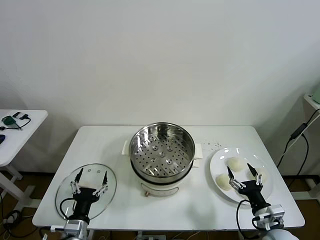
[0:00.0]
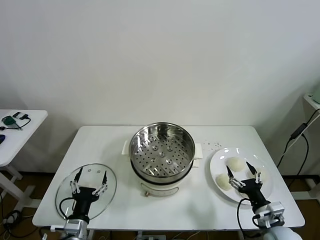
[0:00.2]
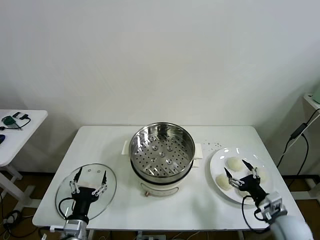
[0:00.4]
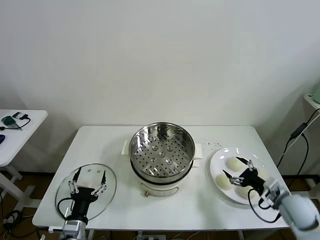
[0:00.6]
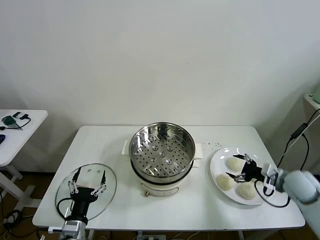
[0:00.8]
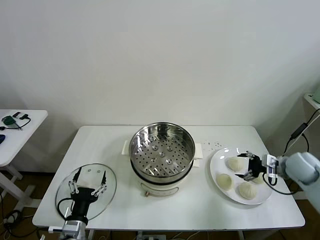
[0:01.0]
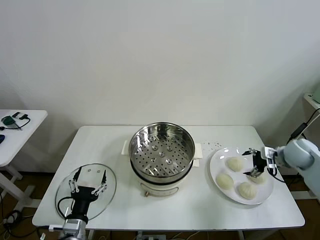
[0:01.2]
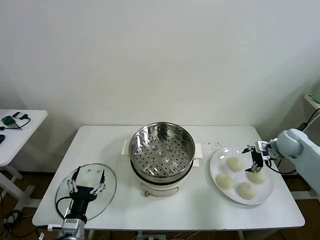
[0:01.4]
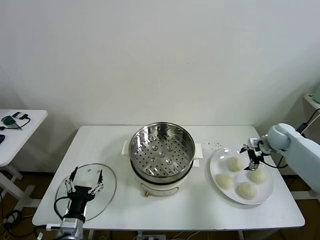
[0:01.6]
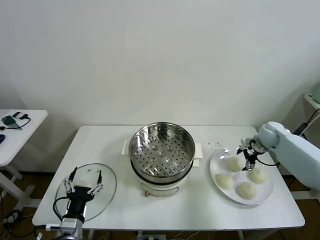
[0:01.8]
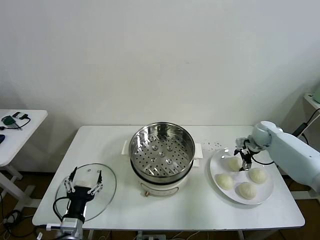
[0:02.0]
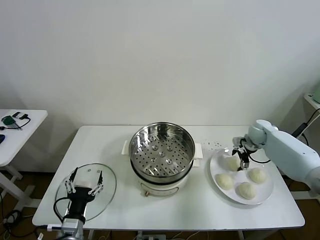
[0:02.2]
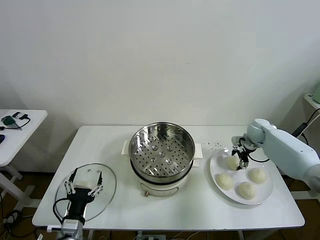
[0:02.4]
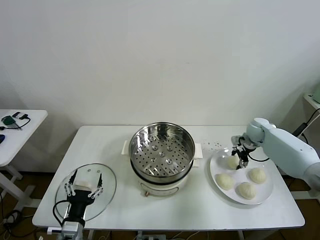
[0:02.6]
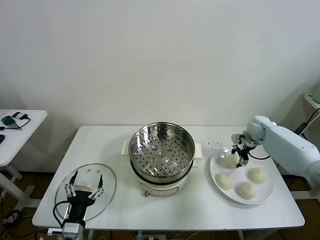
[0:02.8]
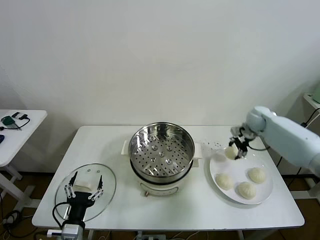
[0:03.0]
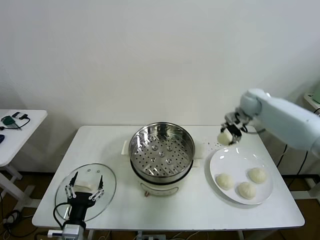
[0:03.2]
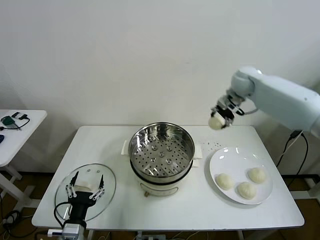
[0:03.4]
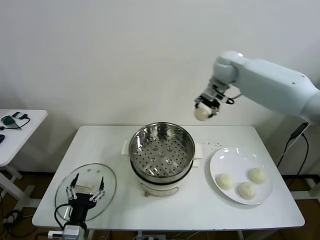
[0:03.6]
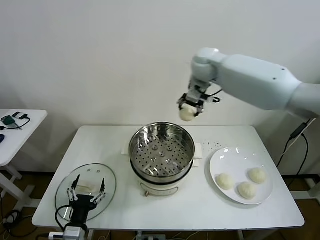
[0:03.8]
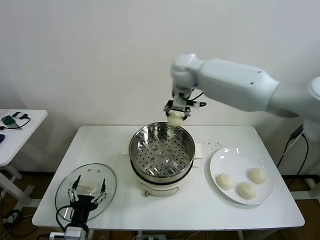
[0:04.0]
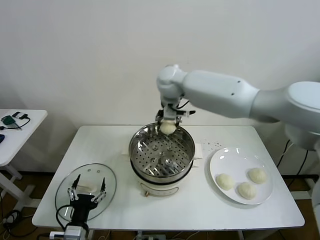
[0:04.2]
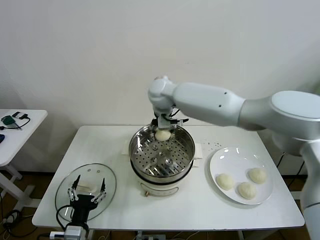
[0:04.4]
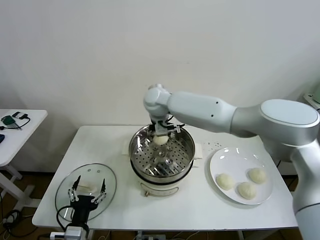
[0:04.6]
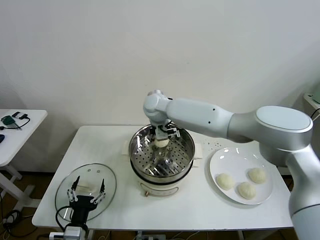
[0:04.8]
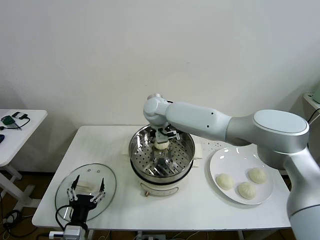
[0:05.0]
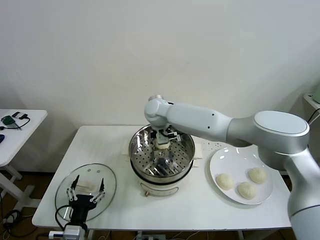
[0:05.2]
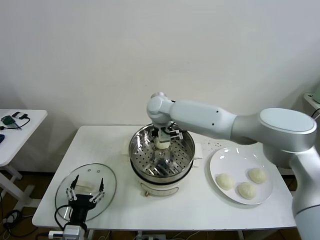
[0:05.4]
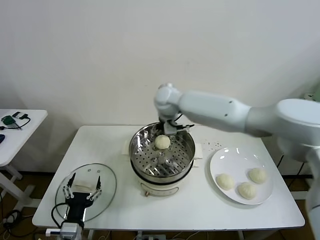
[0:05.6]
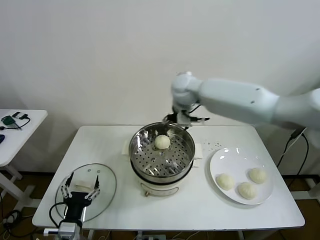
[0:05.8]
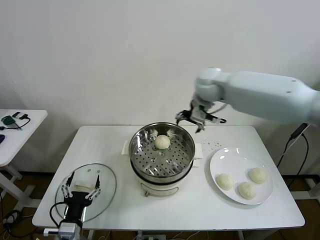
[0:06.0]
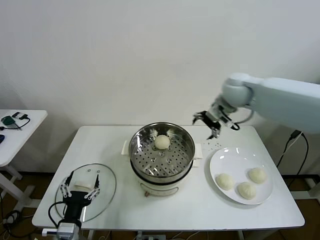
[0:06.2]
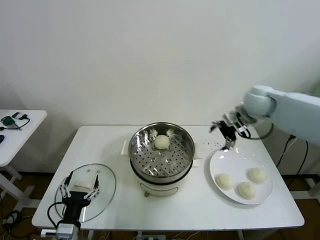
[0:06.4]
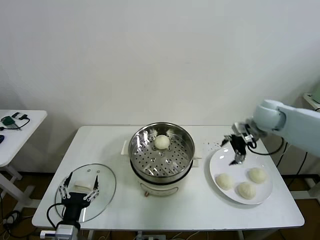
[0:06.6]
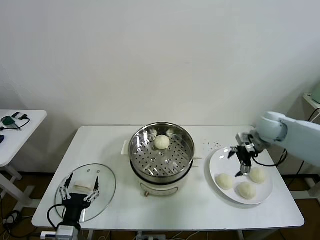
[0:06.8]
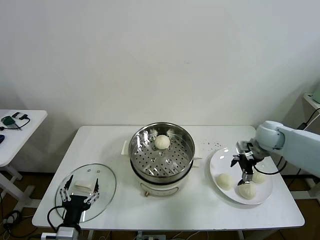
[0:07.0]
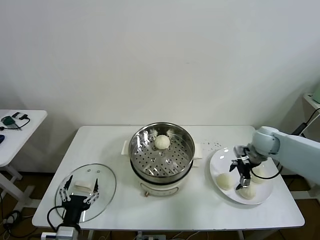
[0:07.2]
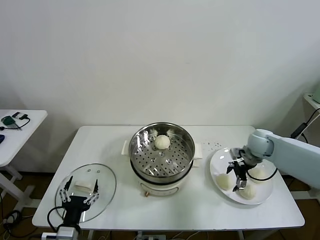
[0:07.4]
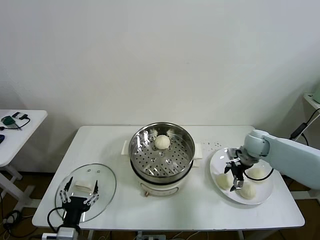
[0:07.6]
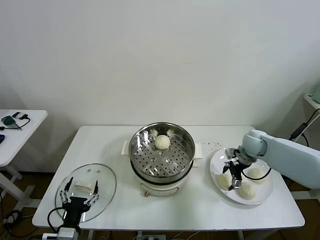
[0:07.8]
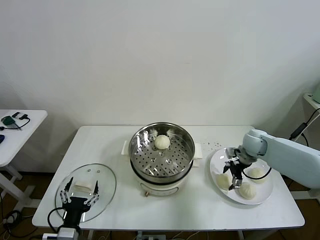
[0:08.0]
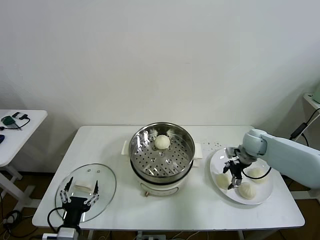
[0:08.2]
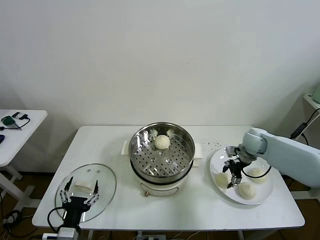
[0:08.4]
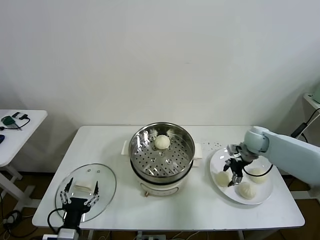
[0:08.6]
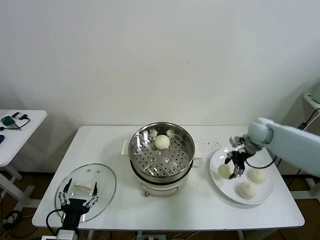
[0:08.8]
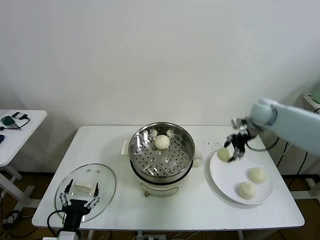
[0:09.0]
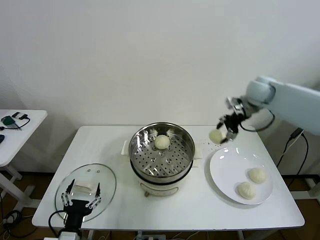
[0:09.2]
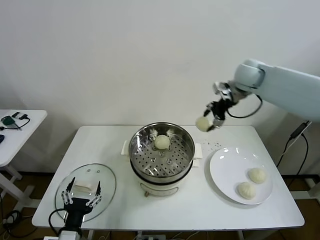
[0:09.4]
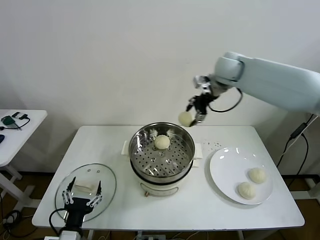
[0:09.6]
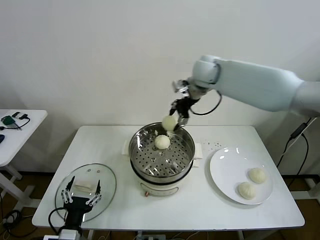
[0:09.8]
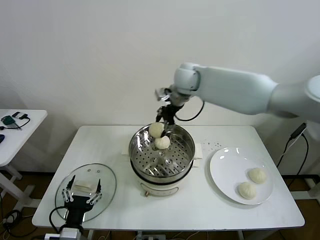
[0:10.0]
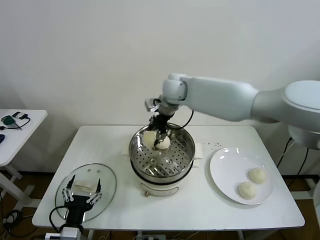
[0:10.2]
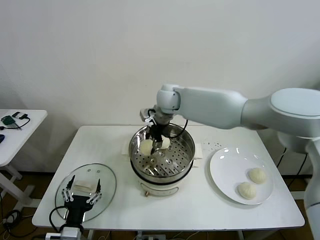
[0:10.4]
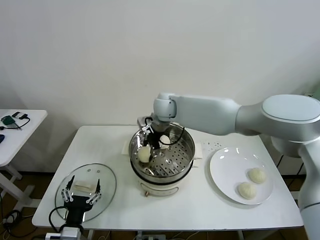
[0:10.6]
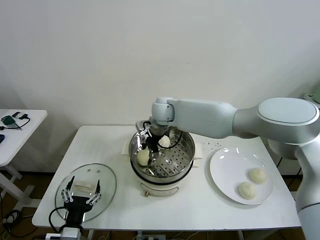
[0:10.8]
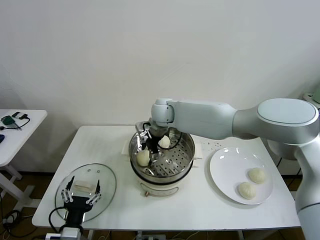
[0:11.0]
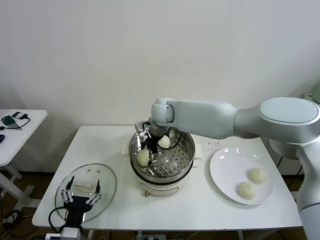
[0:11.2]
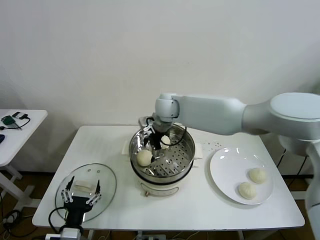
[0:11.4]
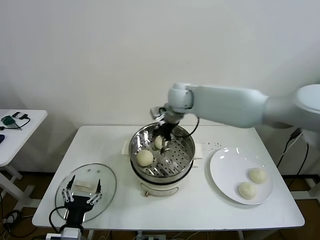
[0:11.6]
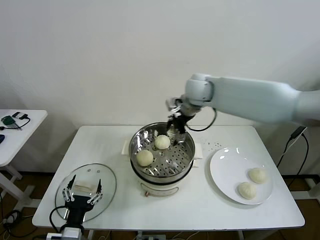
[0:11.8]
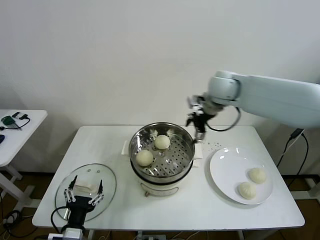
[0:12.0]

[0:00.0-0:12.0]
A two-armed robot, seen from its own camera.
Task of the whole recording: take steamed baozi put them in steamer then cover it.
Step, 0.0 to 2.4 s: Grasp the baozi in the plate with right gripper.
Step, 2.6 to 5.2 s: Place the baozi on the steamer with right gripper.
Step, 5.4 to 8.2 s: Grasp the baozi in the plate with right gripper.
Step, 8.4 to 11.0 s: Place the baozi on the steamer with right gripper.
1.6 to 3.0 s: The right gripper is displaced upward, to the left and forward by approximately 15 cm, and closes its fingers.
3.0 to 4.4 s: The right gripper goes about 35 cm to the left.
4.4 to 6.0 s: The right gripper moves to the right, approximately 25 cm, and opens up.
6.0 to 7.6 s: The right gripper shifts about 25 cm downward and to the right.
7.6 to 9.0 s: The right gripper shifts about 20 cm upward, and closes its fingers.
9.0 to 10.4 s: The right gripper is displaced to the left by approximately 30 cm.
10.4 to 12.0 s: The right gripper is displaced to the right by about 25 cm, and opens its fingers.

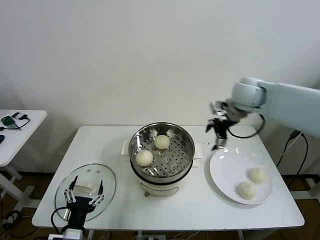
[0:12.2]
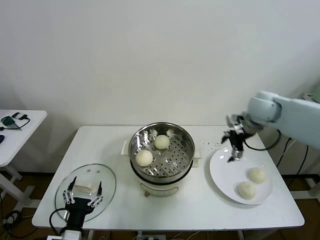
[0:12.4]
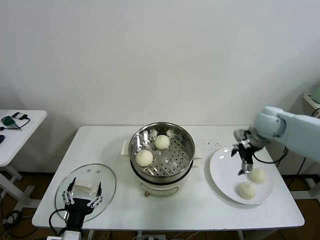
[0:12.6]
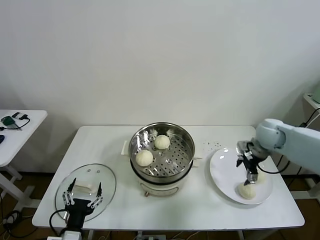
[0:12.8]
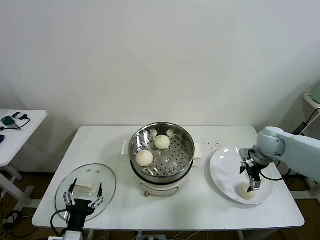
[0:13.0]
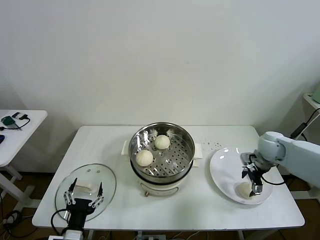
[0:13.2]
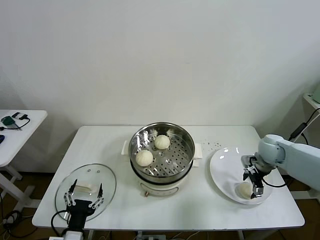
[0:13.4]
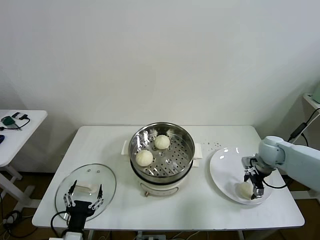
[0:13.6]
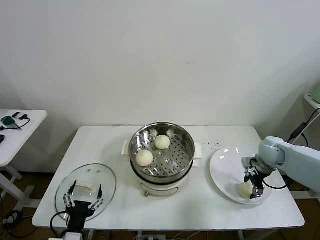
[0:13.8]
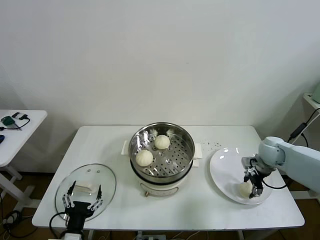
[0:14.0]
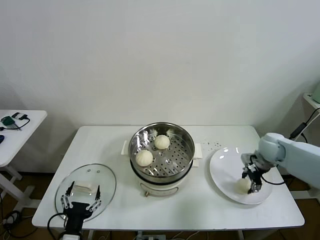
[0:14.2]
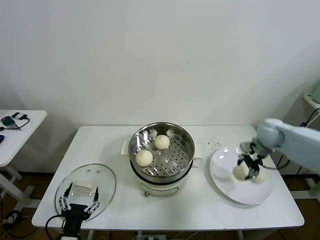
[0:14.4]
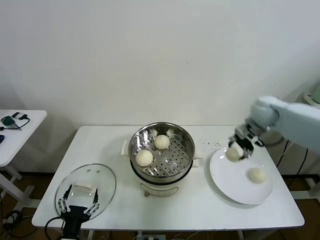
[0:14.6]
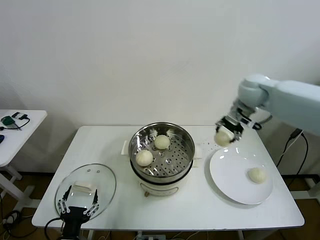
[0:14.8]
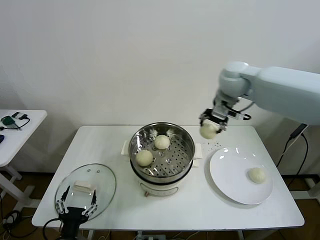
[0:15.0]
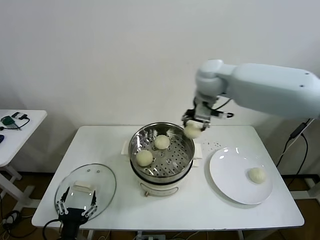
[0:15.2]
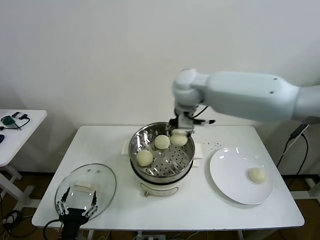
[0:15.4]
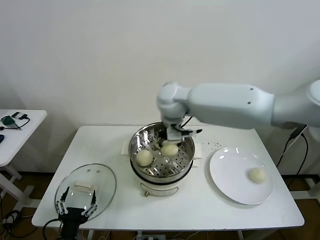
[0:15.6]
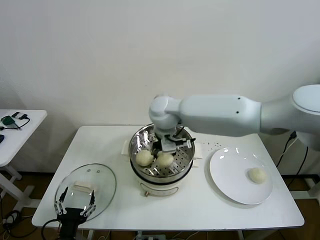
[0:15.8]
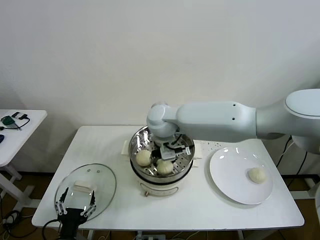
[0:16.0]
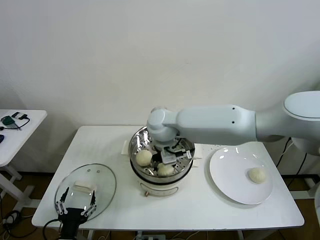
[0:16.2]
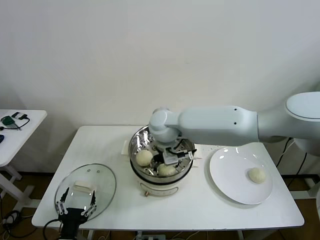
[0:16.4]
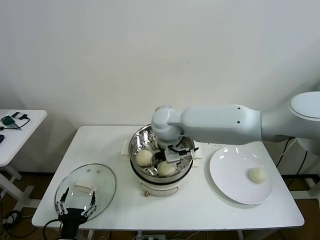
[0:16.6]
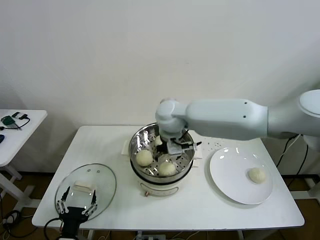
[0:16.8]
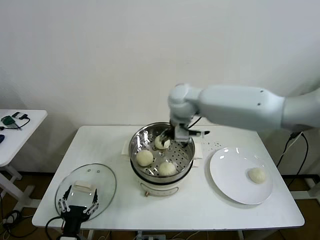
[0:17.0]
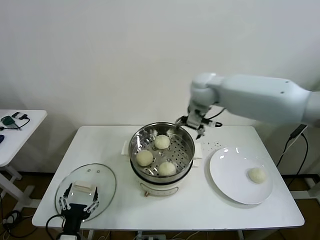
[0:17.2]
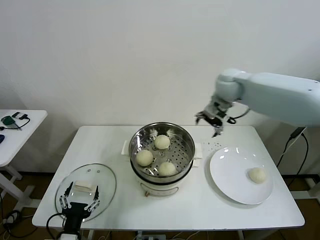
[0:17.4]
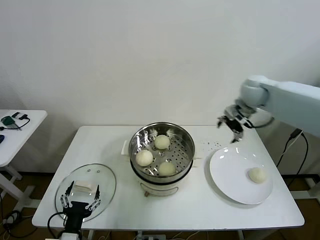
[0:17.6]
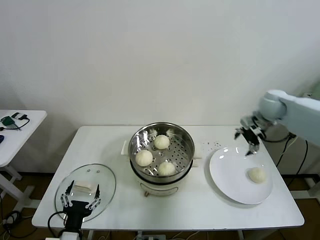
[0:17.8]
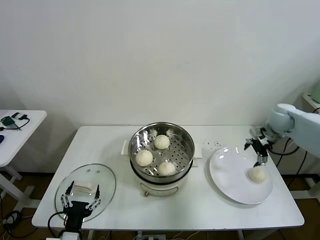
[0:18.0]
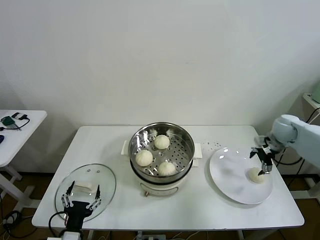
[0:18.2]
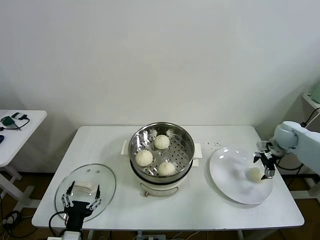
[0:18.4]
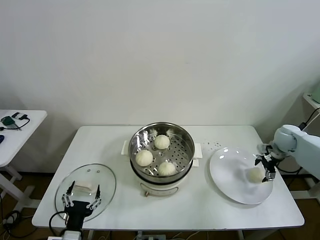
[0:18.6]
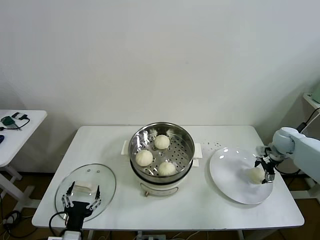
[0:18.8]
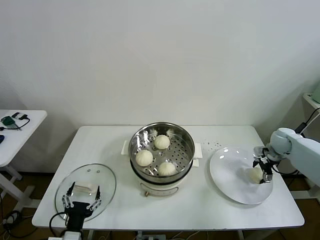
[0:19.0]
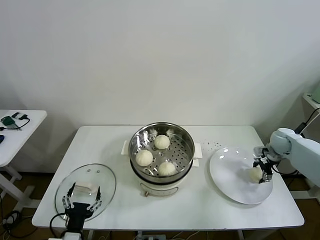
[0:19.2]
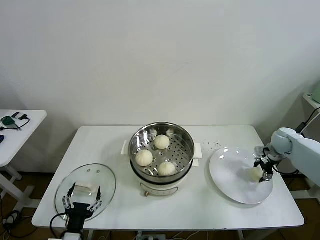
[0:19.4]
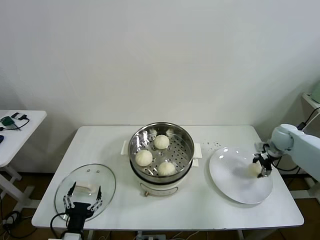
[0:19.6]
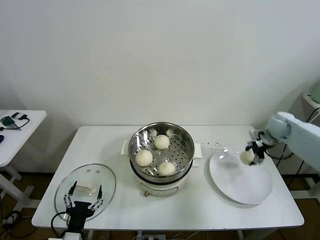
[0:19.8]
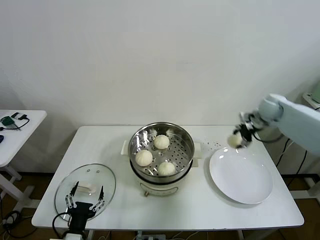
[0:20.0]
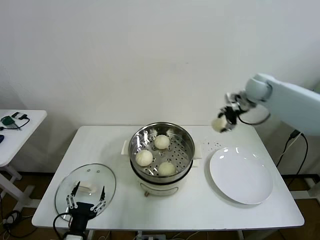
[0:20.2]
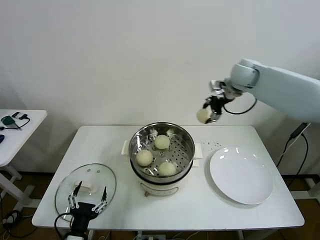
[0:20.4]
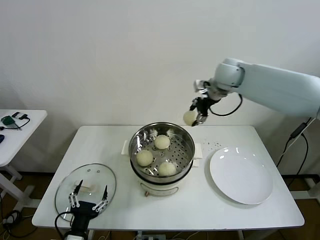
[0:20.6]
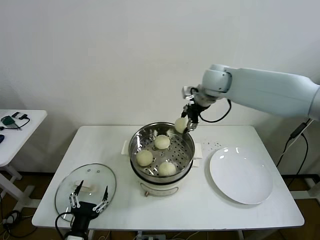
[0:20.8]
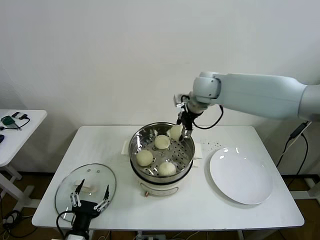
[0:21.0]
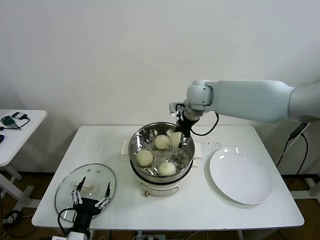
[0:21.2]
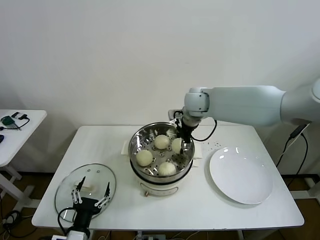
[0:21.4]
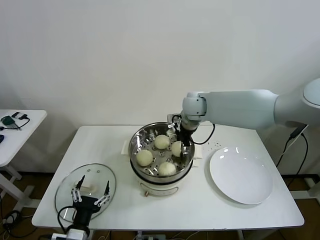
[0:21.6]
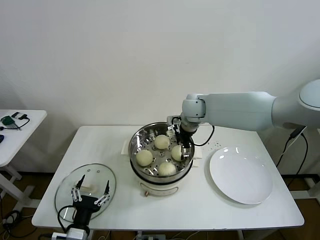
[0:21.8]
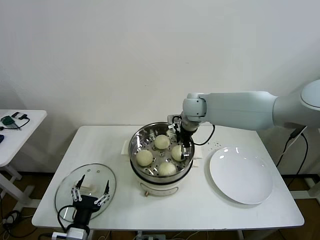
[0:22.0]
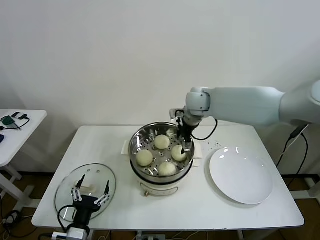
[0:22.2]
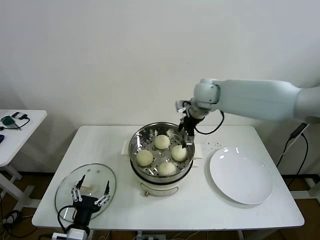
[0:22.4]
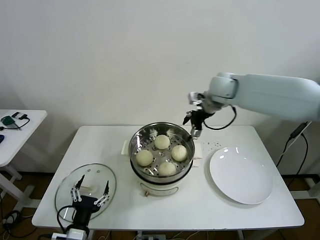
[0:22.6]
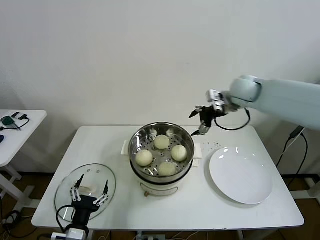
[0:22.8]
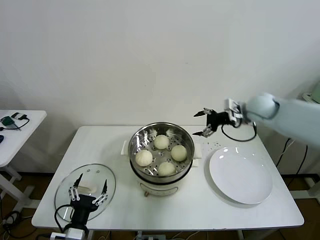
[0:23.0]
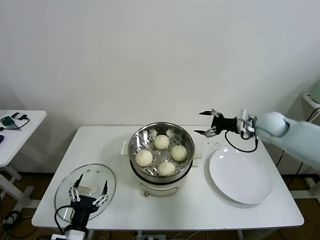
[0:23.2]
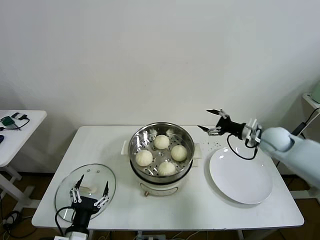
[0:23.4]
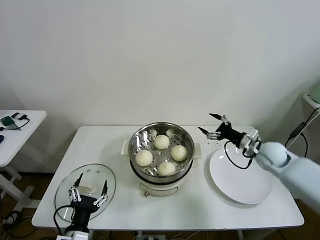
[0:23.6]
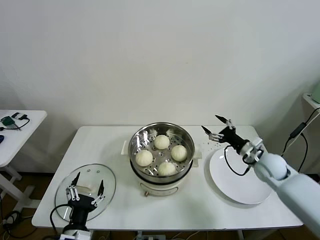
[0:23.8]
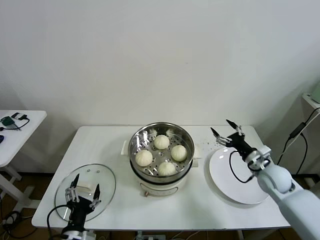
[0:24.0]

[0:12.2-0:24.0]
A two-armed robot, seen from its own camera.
Task of the whole recording: take steamed baozi put them in steamer then cover it.
Step, 12.2 to 14.0 s: Grasp the baozi in the plate with right gripper.
Step, 14.2 to 16.4 s: Place the baozi on the steamer with right gripper.
Step, 16.6 to 19.4 s: Grasp the baozi in the plate with right gripper.
Step, 19.6 to 22.0 s: Place the baozi on the steamer with right gripper.
12.2 to 13.6 s: The right gripper travels downward and to the right by some 20 cm, and closes its fingers.
13.6 to 15.2 s: The right gripper heads to the left and upward, covering about 40 cm, and closes up.
15.2 to 16.6 s: The right gripper heads downward and to the left, covering about 15 cm, and opens up.
16.6 to 18.2 s: The right gripper moves to the right, about 40 cm.
18.2 to 19.6 s: The right gripper closes its fingers.
19.6 to 21.0 s: The right gripper goes some 35 cm to the left and upward.
21.0 to 22.6 s: The right gripper moves to the right, roughly 10 cm, and opens.
22.6 to 24.0 s: The right gripper moves downward, backward and to the right, approximately 35 cm.
